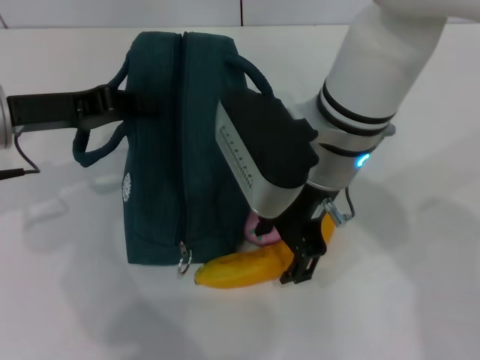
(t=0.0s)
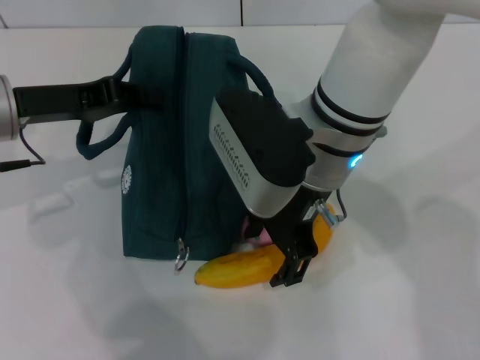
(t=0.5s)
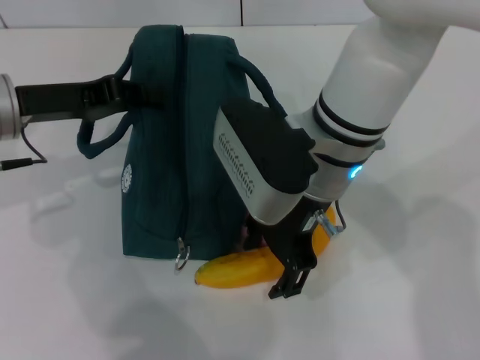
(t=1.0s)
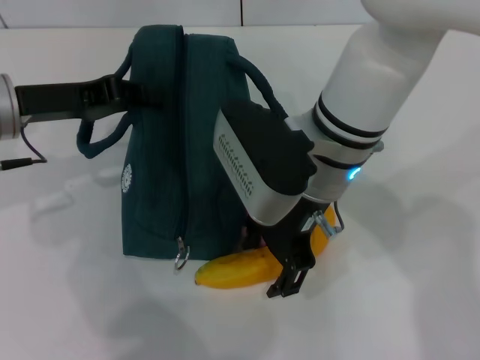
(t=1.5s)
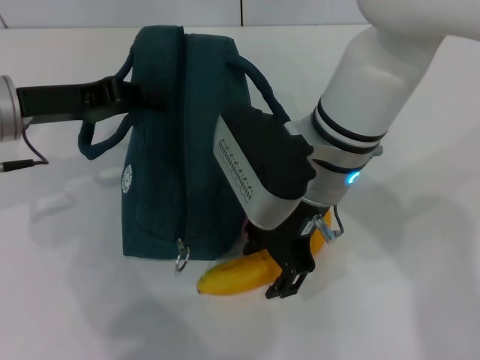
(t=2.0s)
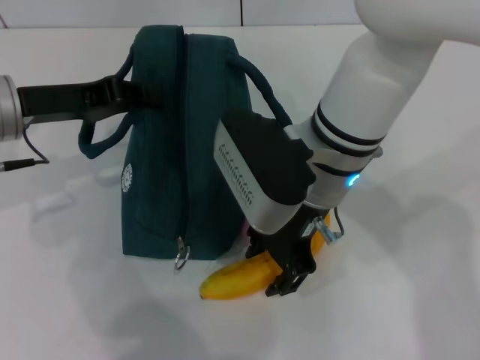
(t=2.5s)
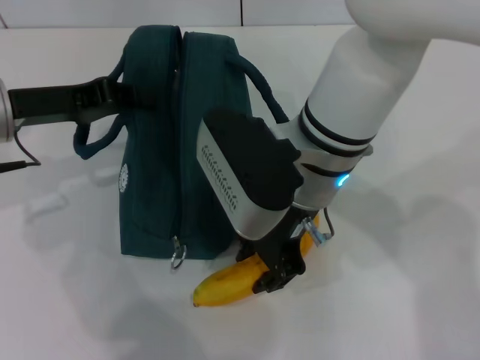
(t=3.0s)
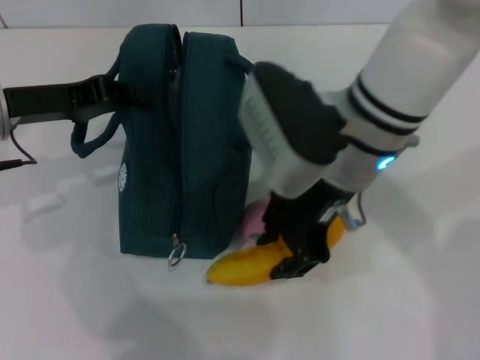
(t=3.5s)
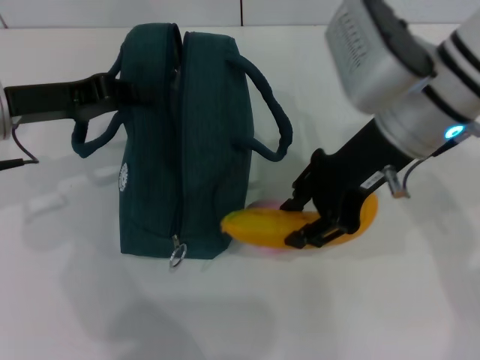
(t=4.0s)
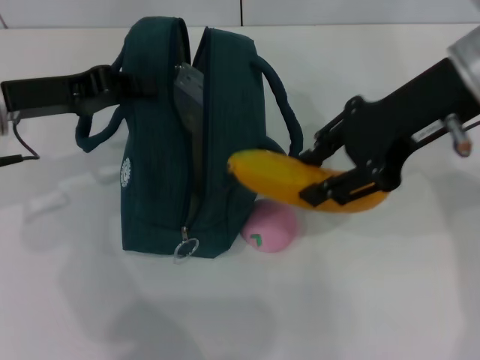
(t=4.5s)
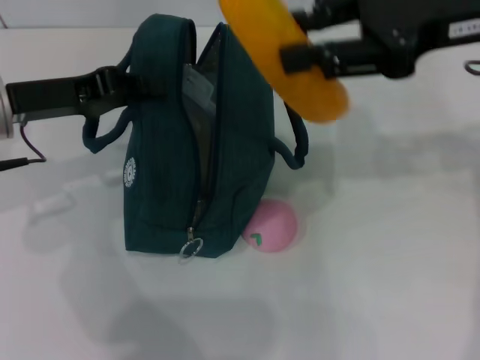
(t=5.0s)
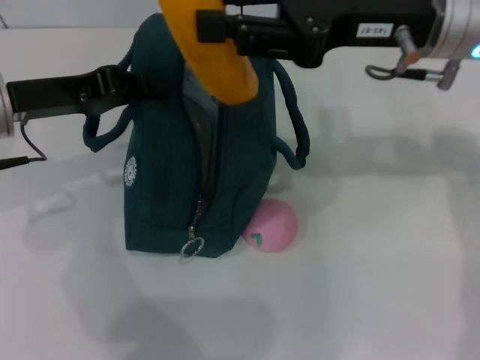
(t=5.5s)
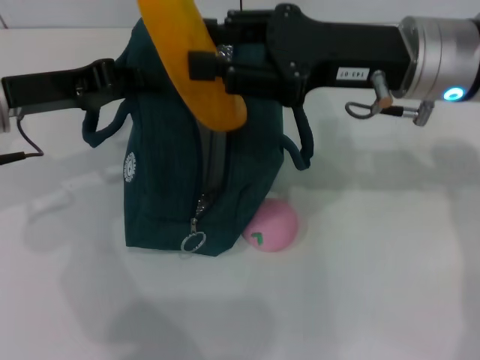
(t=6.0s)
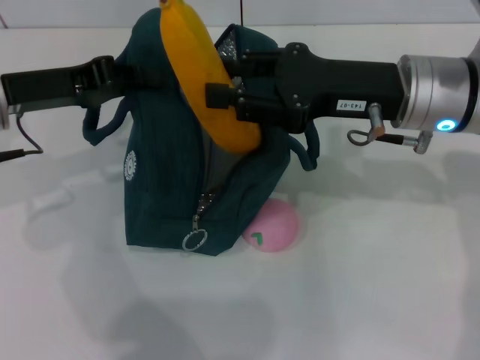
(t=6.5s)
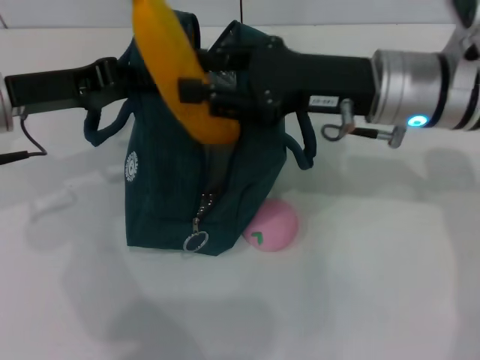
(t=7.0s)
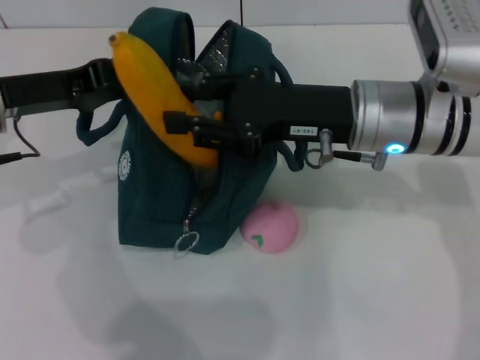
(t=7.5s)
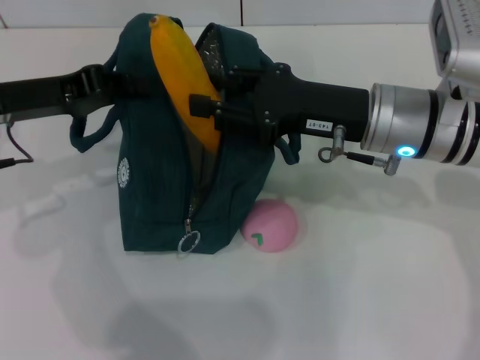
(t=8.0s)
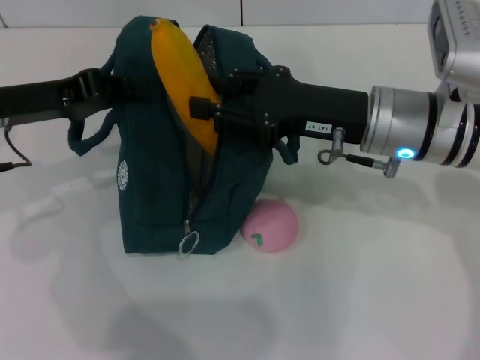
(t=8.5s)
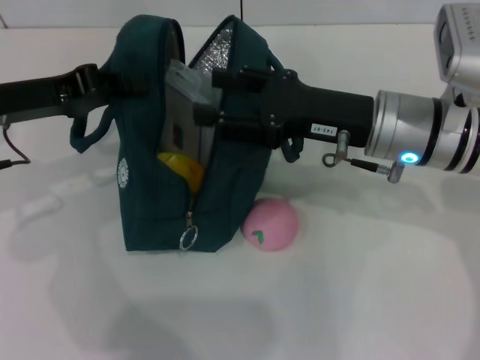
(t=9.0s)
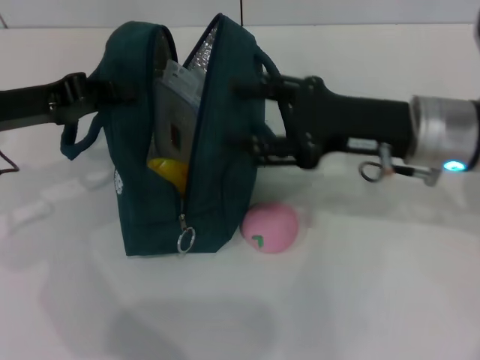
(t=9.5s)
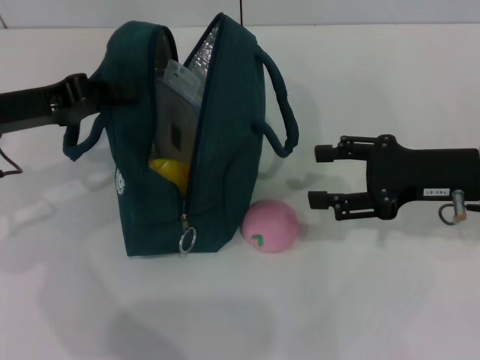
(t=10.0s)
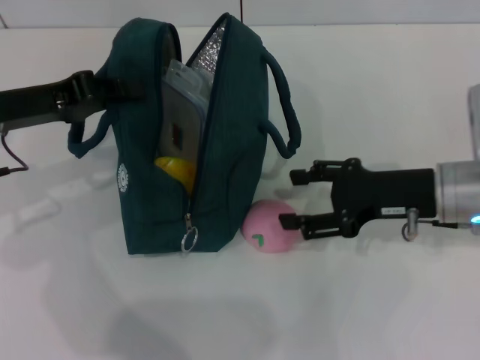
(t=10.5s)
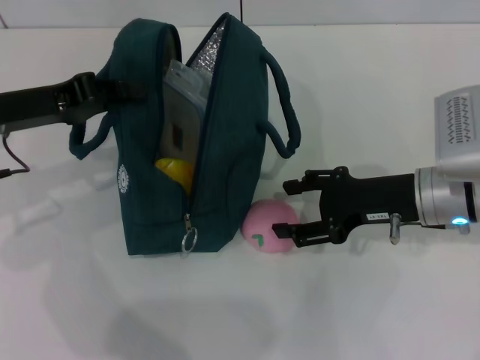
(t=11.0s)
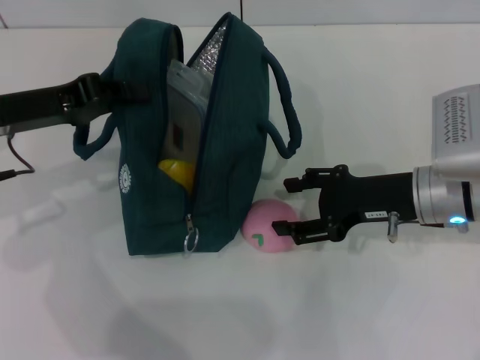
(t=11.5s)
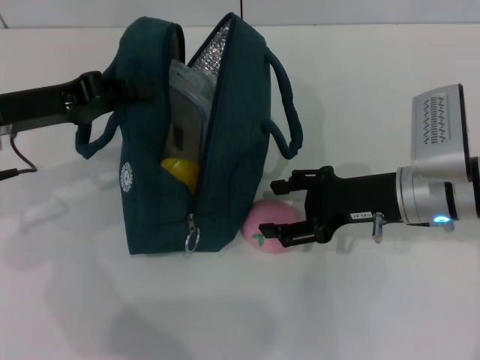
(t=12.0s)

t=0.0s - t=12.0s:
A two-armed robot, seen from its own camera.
Step, t=0.0s - t=2.5s: Take the banana with your right hand.
Step, t=3.0s - t=9.0s: Put the banana into the lunch bag with your right hand.
t=0.0s - t=2.0s: There are only small adjustments of the grippers.
t=2.0s - t=4.0s: The right gripper shifts some 10 cm to the right, and closes its fingers.
t=4.0s - t=6.0s: The right gripper moves approximately 10 cm to the right and comes back.
t=6.0s - t=8.0s: The right gripper moves downward, approximately 5 cm.
t=8.0s - t=10.0s: The right gripper heads to the right, covering some 10 cm, and opens its fingers.
t=10.0s - t=12.0s: The right gripper goes approximately 5 cm to the left.

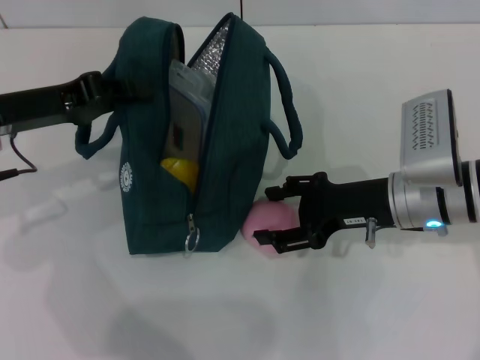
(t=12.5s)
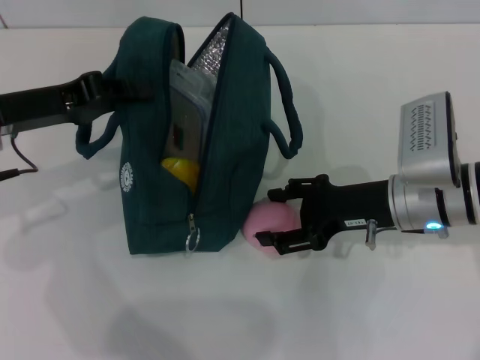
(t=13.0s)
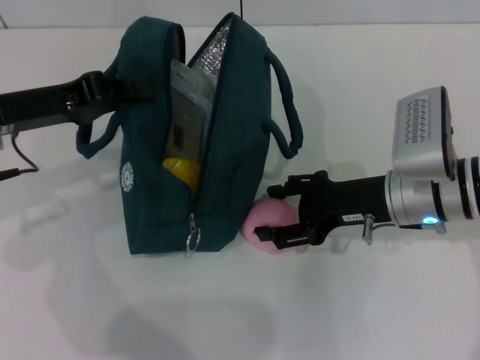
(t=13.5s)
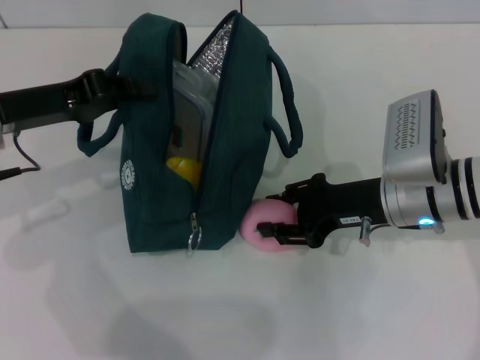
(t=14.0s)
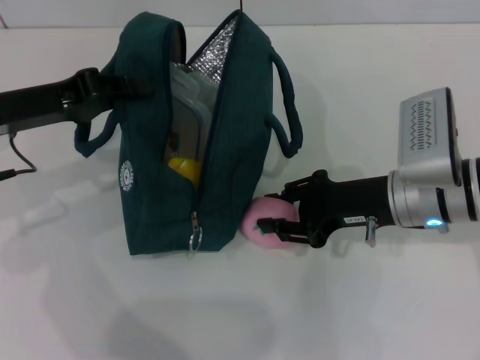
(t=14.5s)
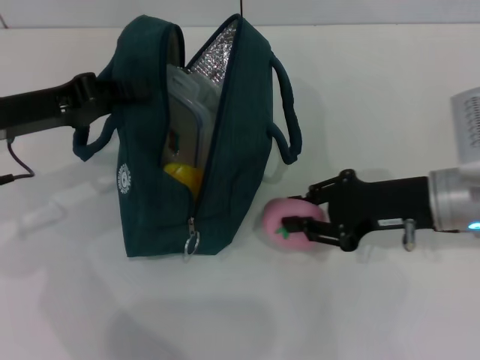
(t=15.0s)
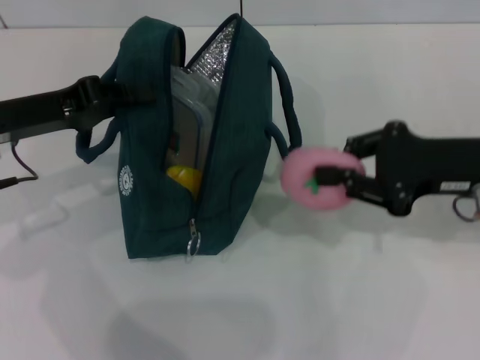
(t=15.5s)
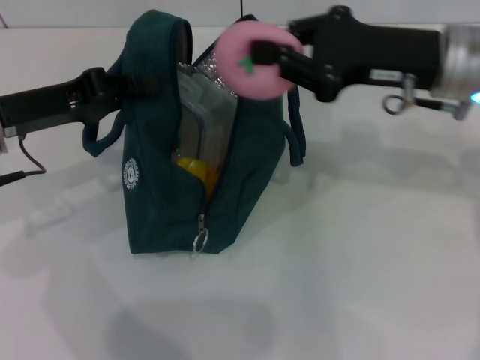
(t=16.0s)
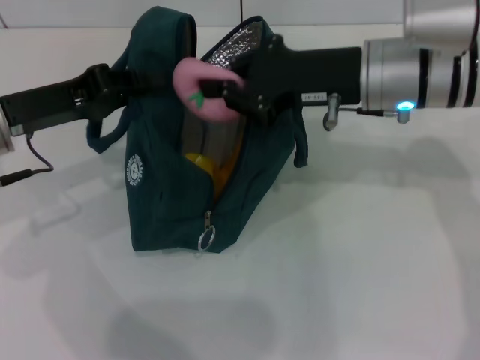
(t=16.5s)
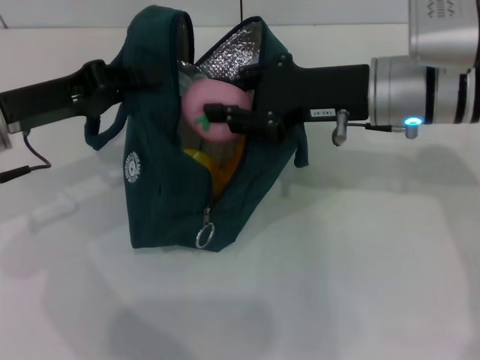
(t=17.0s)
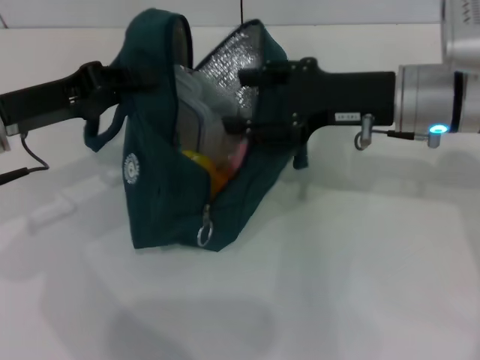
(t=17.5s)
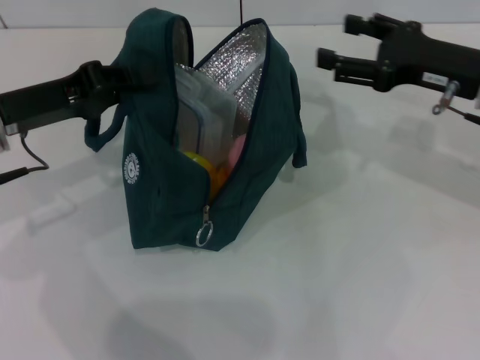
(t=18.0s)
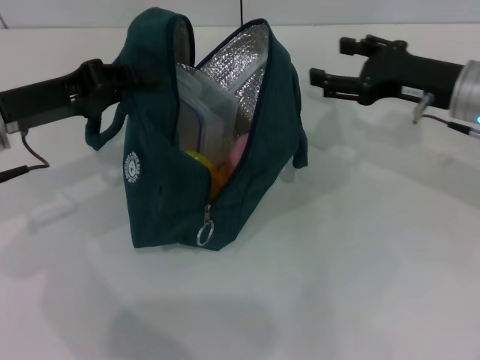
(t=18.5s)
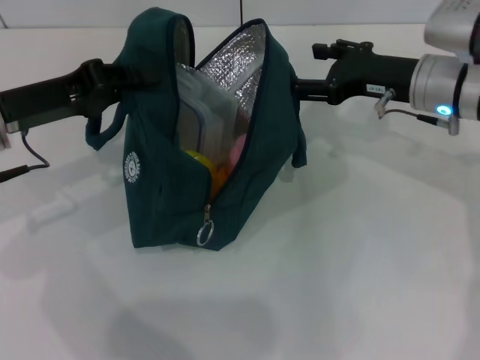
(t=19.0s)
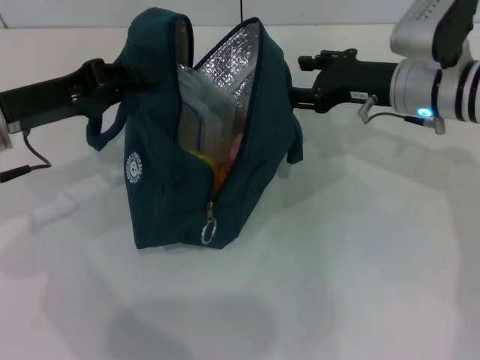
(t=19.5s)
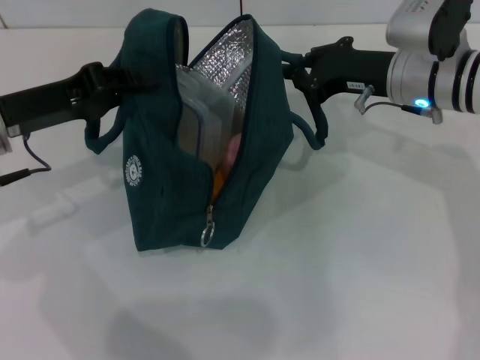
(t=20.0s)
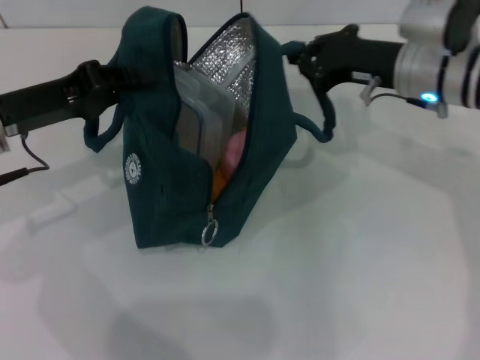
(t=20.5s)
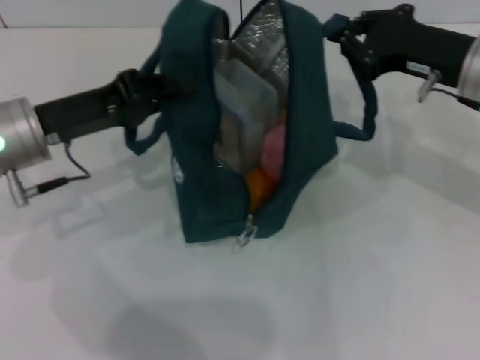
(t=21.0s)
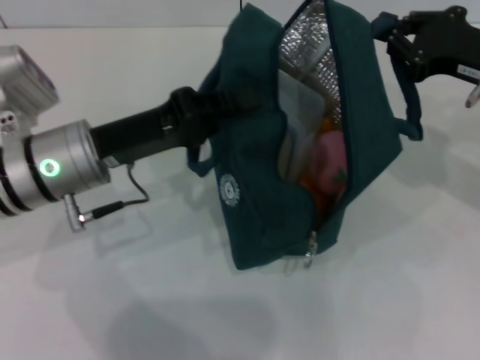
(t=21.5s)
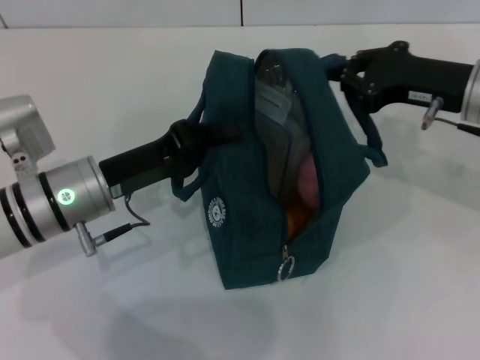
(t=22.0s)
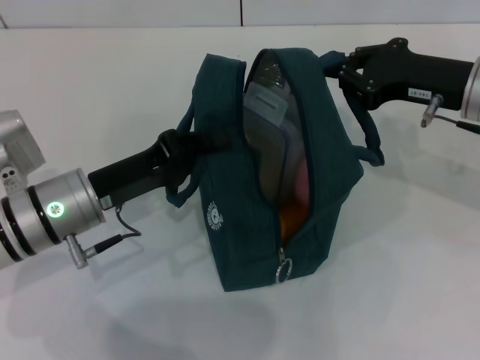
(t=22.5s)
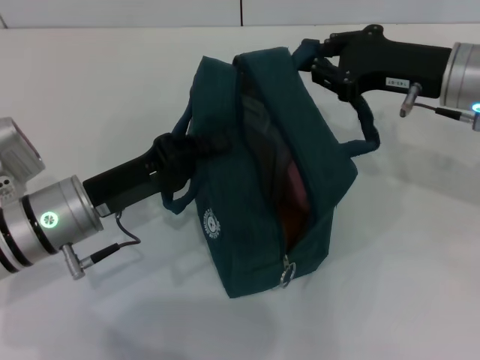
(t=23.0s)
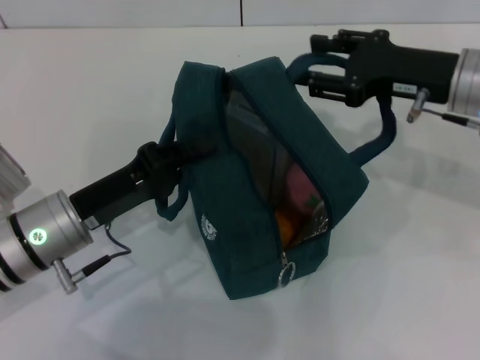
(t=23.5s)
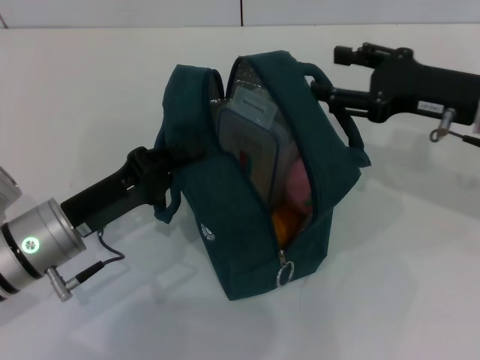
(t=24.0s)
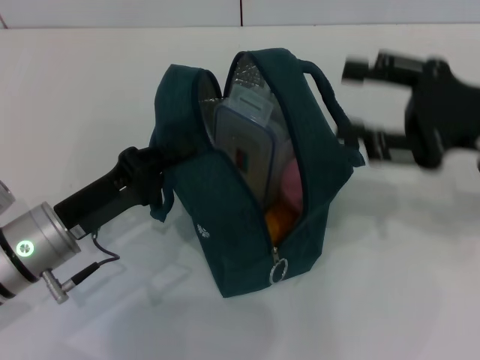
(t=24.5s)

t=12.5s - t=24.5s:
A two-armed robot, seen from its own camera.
Step, t=17.5s - t=23.5s: Hold the lunch bag with your right hand.
t=12.5s - t=14.5s: The right gripper closes up.
t=14.5s - t=16.5s: The right gripper travels upward by roughly 10 cm, and closes up.
t=16.5s - t=18.5s: The right gripper heads to the right and downward, covering approximately 10 cm, and opens.
t=18.5s - t=20.5s: The right gripper moves about 5 cm, and closes.
t=20.5s - t=22.5s: The right gripper goes roughly 5 cm to the right; the left gripper heads downward and to the right, covering approximately 10 cm.
t=22.5s - t=24.5s: The right gripper goes some 5 cm backward, and opens up.

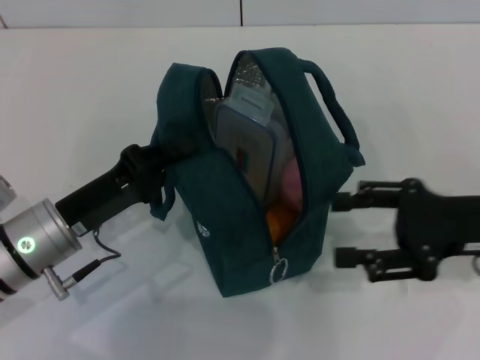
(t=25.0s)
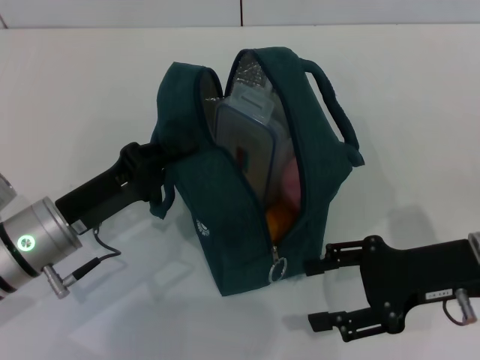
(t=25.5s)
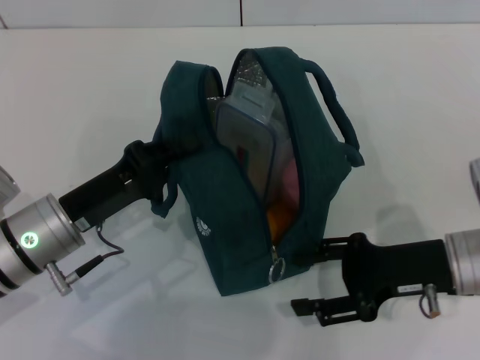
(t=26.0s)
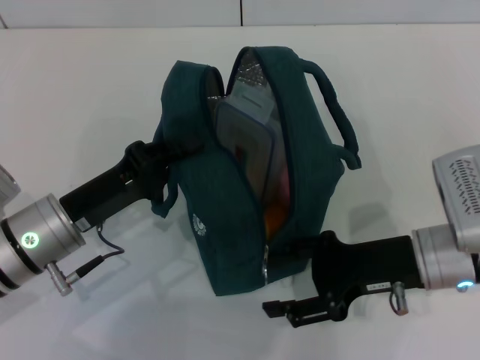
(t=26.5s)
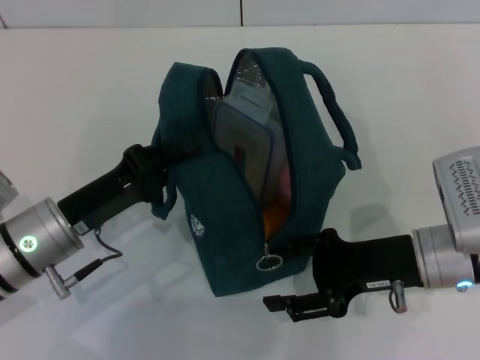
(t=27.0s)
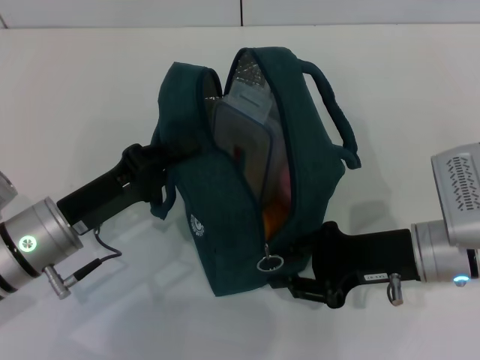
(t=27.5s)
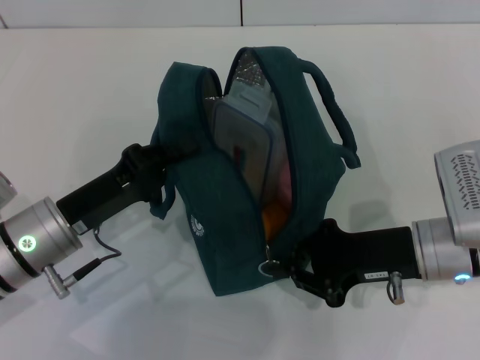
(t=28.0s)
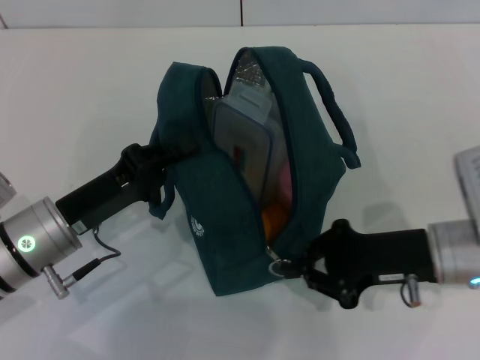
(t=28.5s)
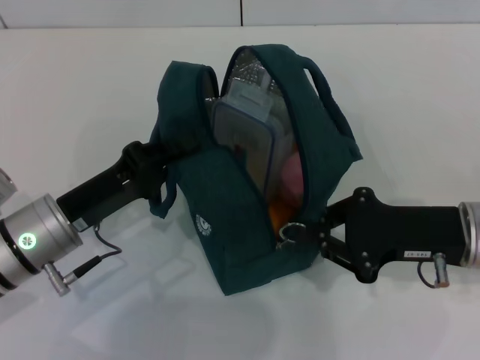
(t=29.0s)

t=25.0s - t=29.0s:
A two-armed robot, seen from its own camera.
t=25.0s - t=27.0s: The right gripper travels to the left and downward by roughly 10 cm.
t=27.0s - t=29.0s: The right gripper closes up.
